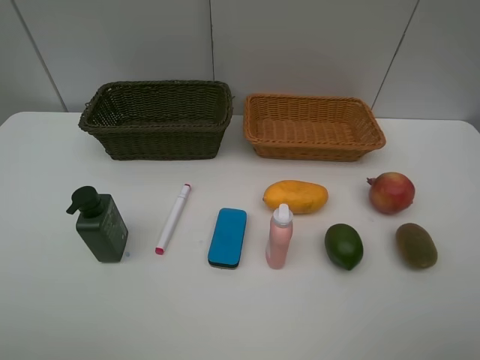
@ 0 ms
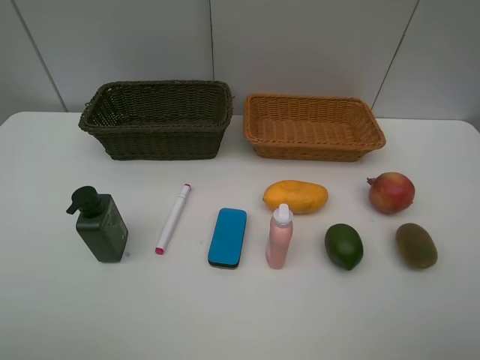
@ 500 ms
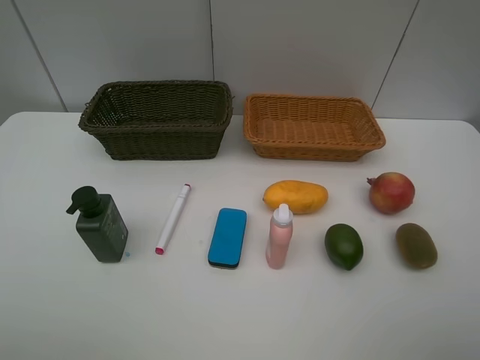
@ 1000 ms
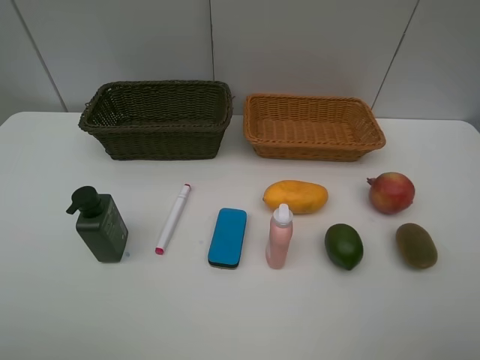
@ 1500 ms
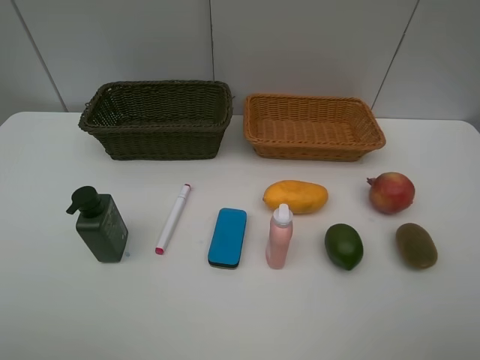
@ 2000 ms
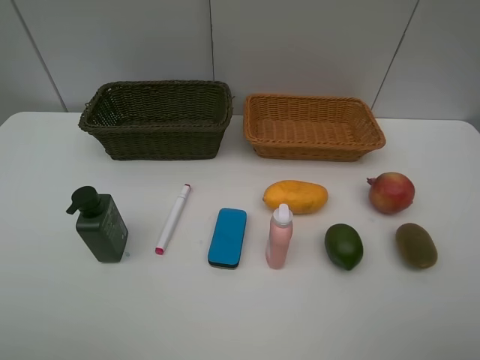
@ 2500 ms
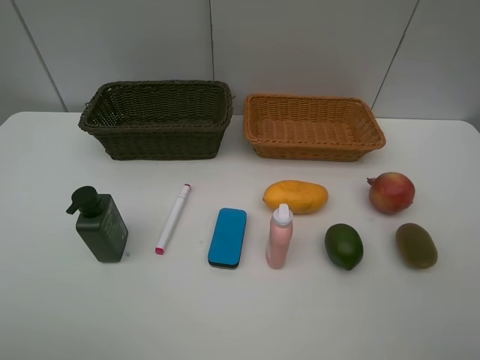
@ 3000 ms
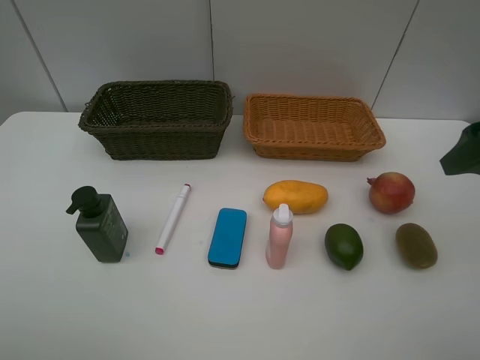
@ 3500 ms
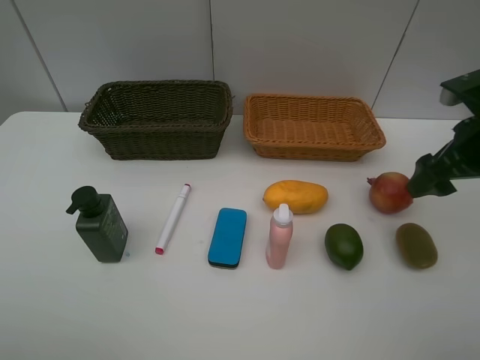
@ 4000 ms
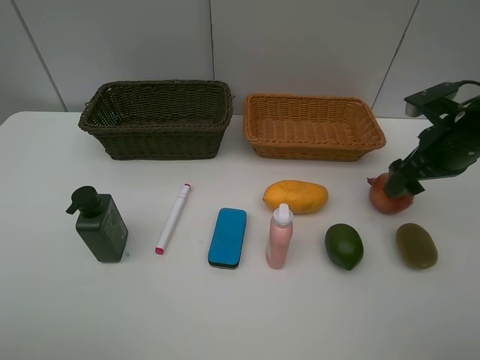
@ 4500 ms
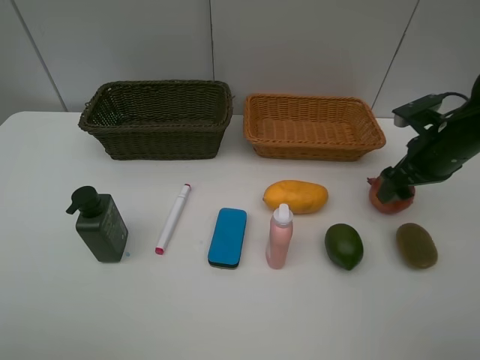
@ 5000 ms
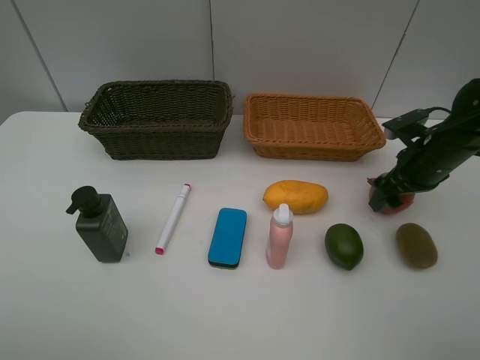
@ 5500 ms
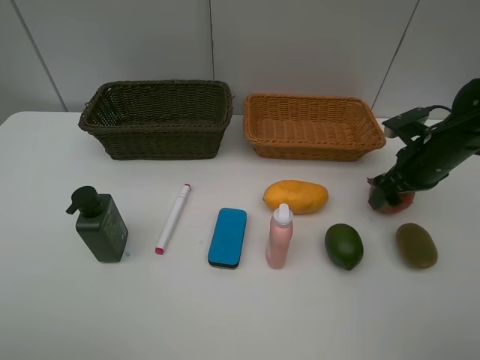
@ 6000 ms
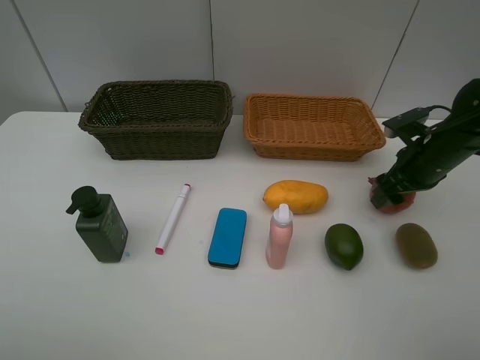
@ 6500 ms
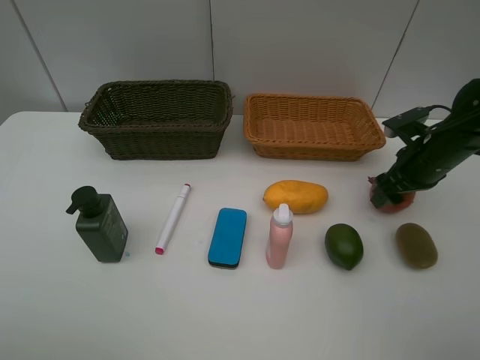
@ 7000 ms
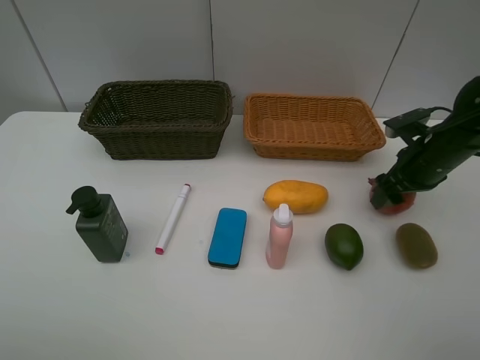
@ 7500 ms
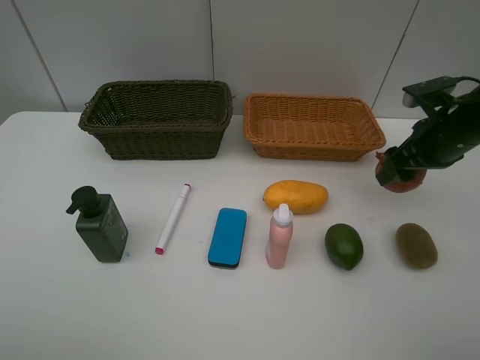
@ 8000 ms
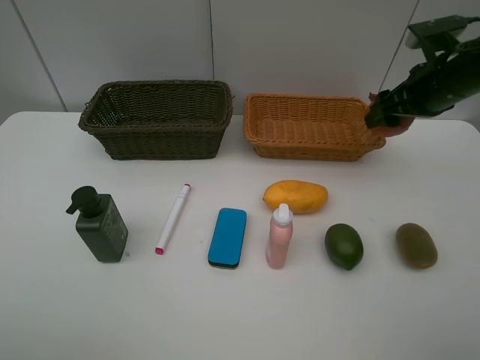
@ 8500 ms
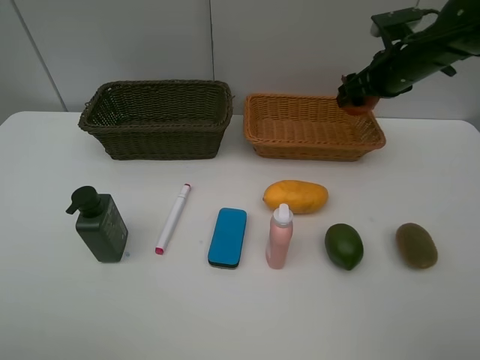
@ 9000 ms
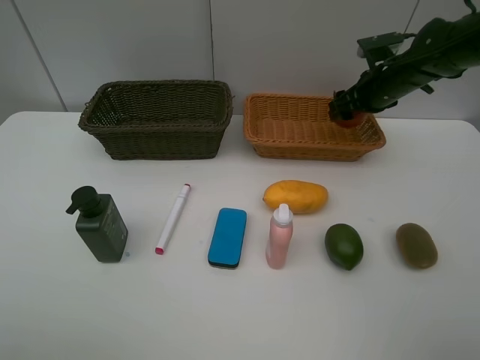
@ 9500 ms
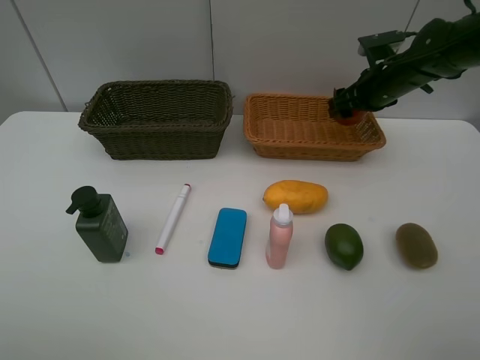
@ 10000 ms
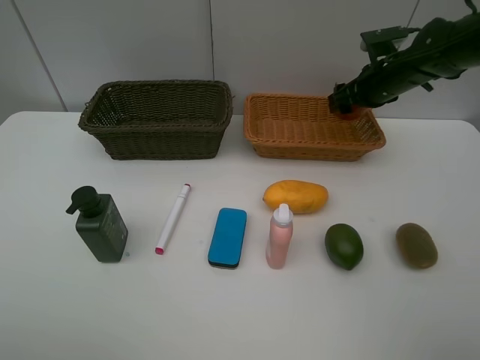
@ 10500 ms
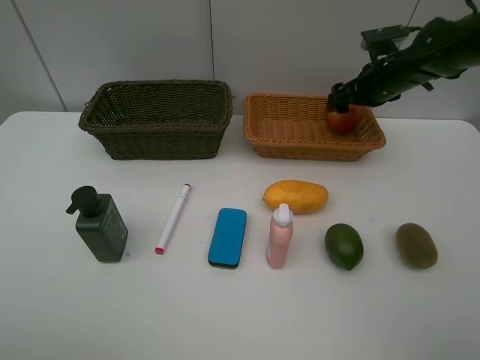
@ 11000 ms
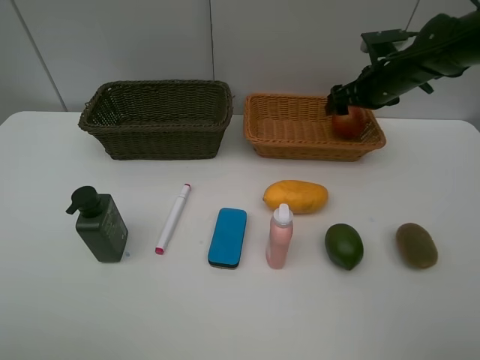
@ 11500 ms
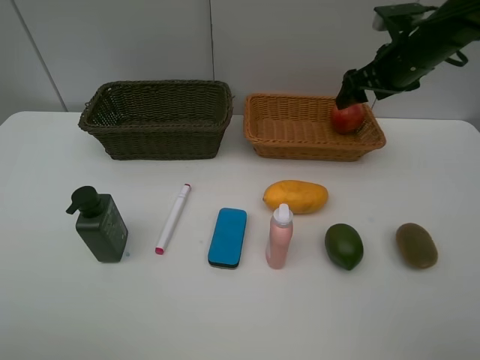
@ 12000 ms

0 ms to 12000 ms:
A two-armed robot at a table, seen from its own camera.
Task of the whole recording: Place multiple objects separately in different baskets.
Step, 0 ms to 8000 ms: Pick up the pomegranate with right gripper.
Step, 8500 ms to 11500 ms: Place the pomegranate in the light basket with right gripper.
0 ms to 2000 ms: Both grippers stay put.
2000 ms to 4000 ms: The right gripper travels forward by roughly 25 cm.
4000 ms to 6000 ms: The right gripper heads downward and forward, covering approximately 10 cm.
6000 ms to 8000 ms: The right gripper is displaced upward by approximately 5 cm, and closes.
8000 ms to 10000 ms: The right gripper is displaced forward by roughly 15 cm.
10000 ms to 12000 ms: The right gripper heads upward, covering about 5 cm, and opens.

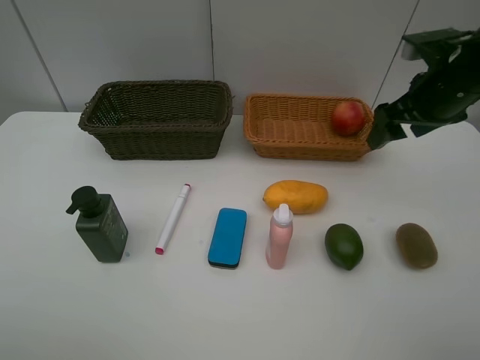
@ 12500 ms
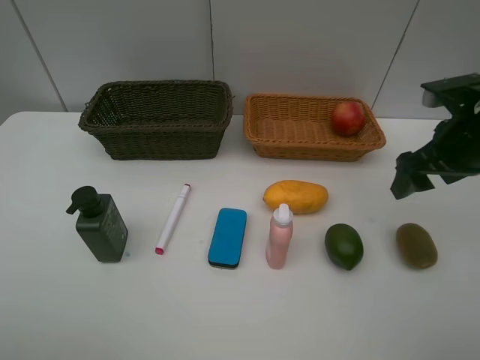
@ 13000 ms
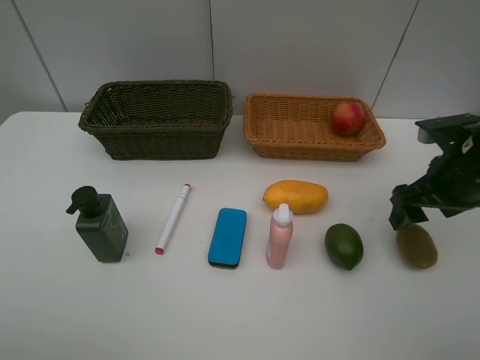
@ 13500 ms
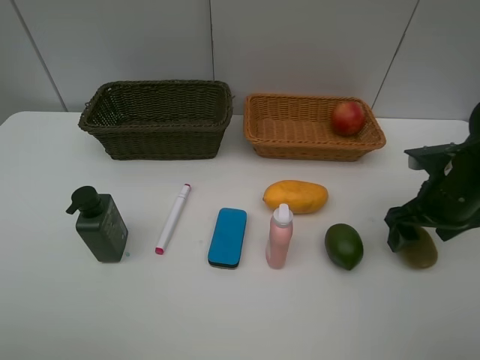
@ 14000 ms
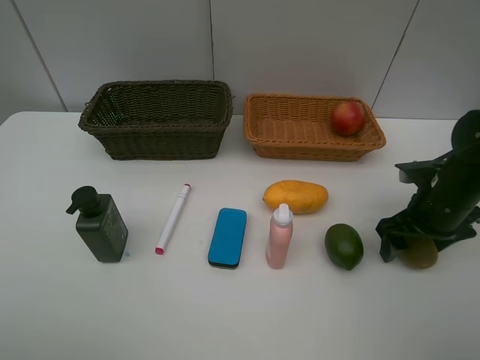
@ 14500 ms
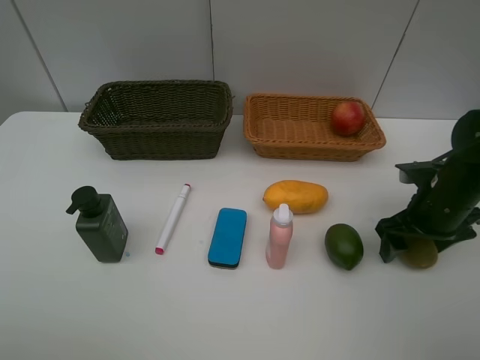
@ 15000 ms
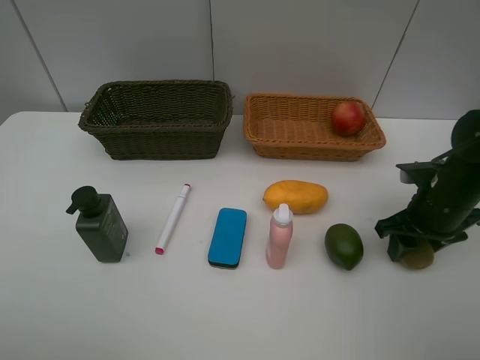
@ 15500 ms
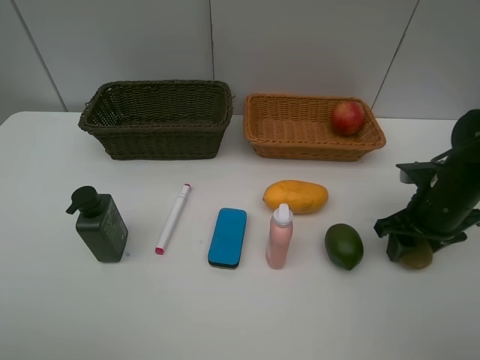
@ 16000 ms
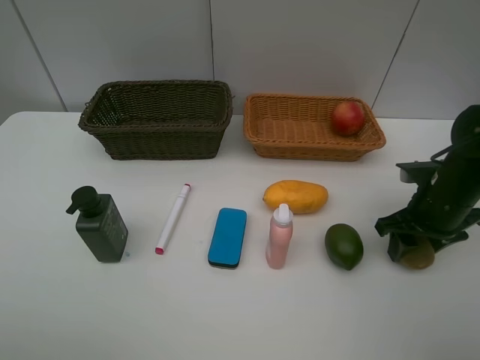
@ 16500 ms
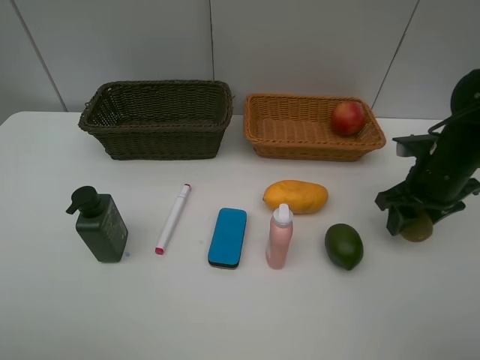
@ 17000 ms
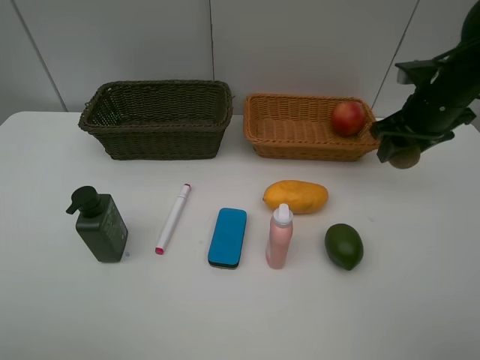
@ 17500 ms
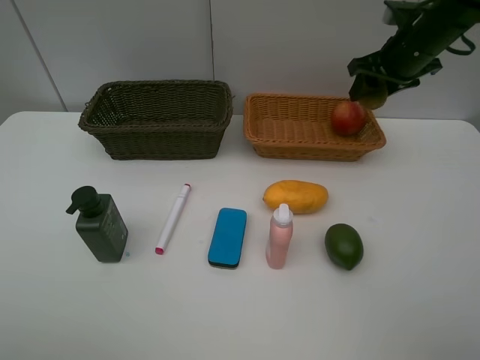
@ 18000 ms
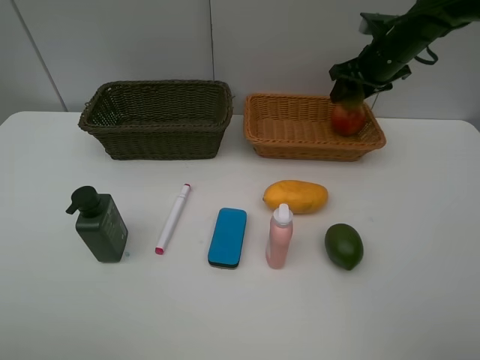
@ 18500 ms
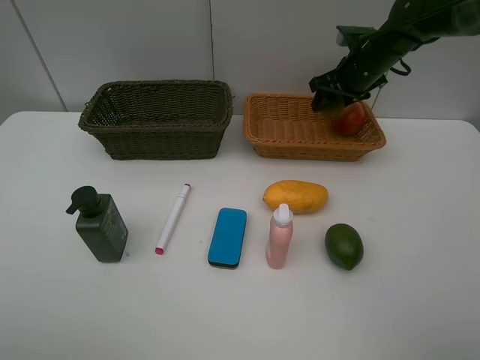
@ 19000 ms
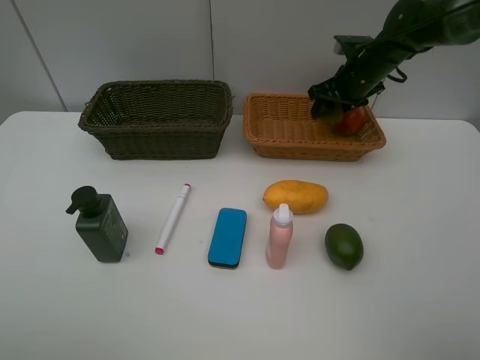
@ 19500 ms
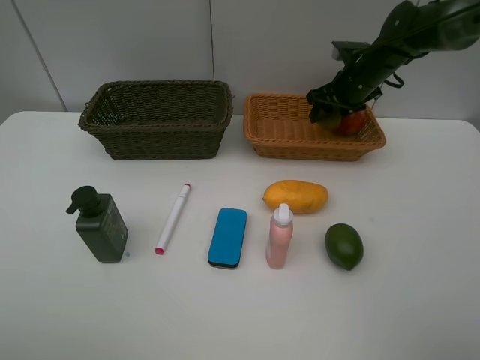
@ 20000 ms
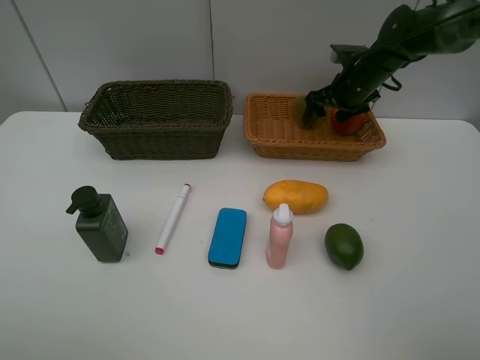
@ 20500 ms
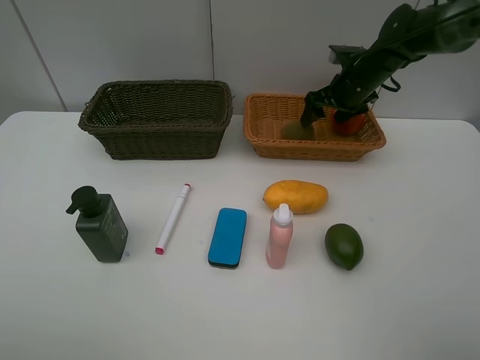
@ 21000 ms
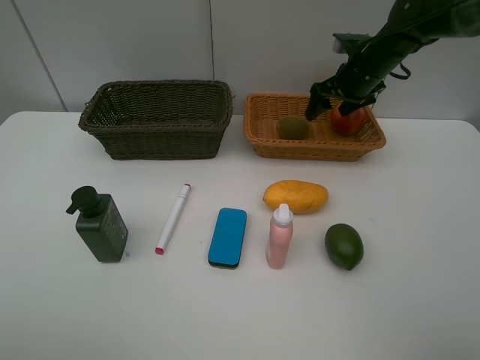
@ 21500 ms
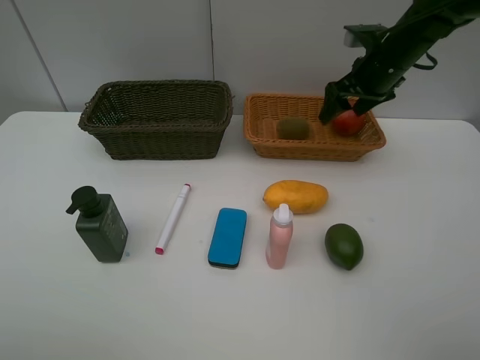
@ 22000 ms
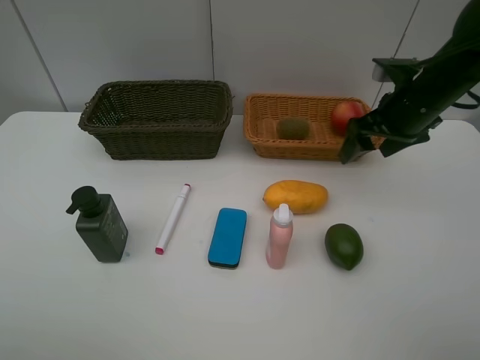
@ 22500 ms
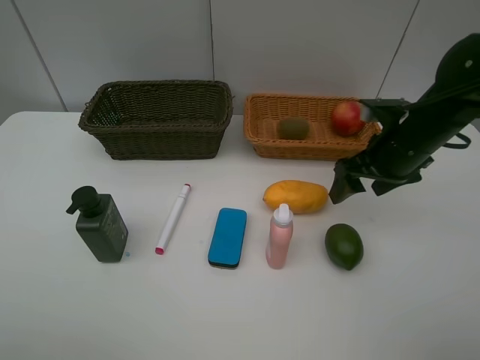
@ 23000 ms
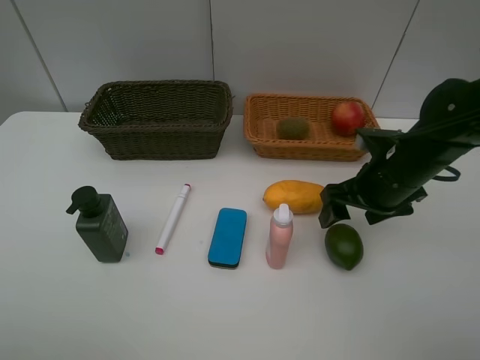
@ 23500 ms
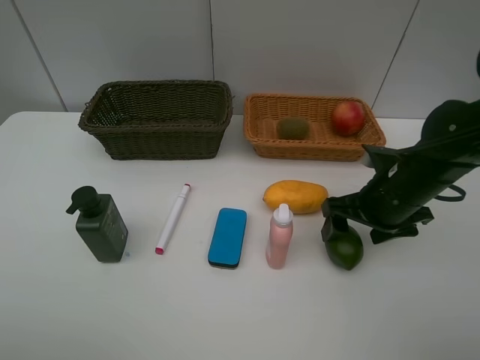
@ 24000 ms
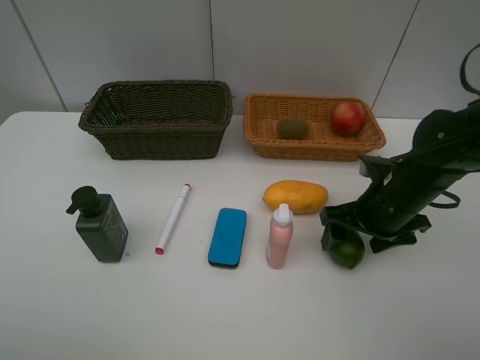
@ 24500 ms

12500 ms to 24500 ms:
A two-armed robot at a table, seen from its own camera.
Task of the whole recording: Place multiple objects separately in different baskets.
Step, 12500 ms to 17000 ms: Pick up kiwi with right gripper.
Step, 17500 ms to 21000 ms: Place the kiwi in the light basket with right gripper.
12500 ms to 14500 ms: The right gripper is displaced downward and backward by about 15 cm.
14500 ms to 16500 ms: The right gripper closes.
16500 ms to 18500 ms: The right gripper shifts approximately 25 cm forward and upward.
18500 ms to 20500 ms: The right gripper travels downward by approximately 5 cm, and opens.
20500 ms to 22500 ms: The right gripper travels backward by about 15 cm.
22500 ms to 24500 ms: The right gripper goes roughly 15 cm downward and backward.

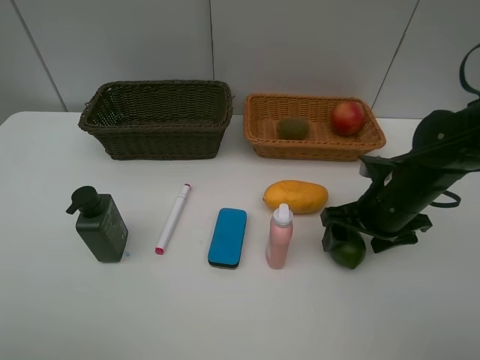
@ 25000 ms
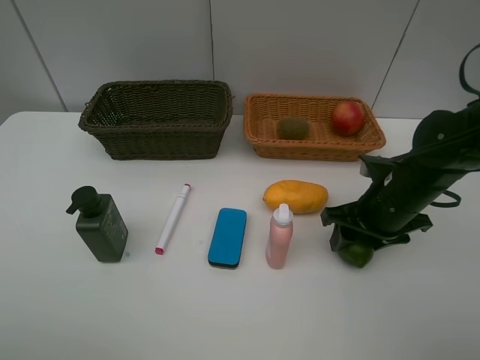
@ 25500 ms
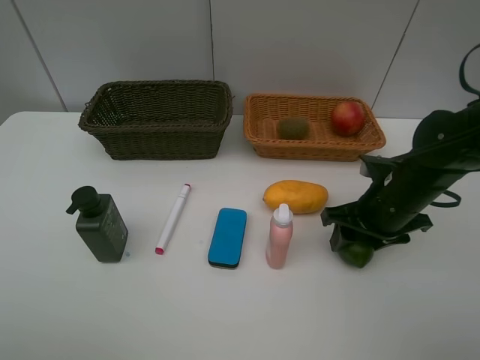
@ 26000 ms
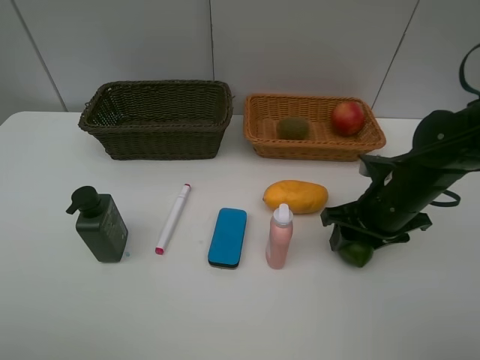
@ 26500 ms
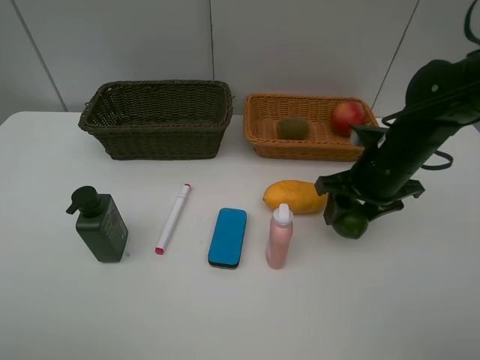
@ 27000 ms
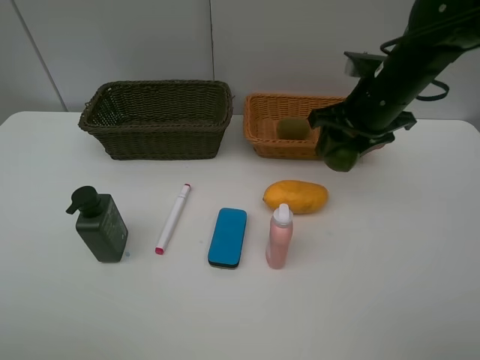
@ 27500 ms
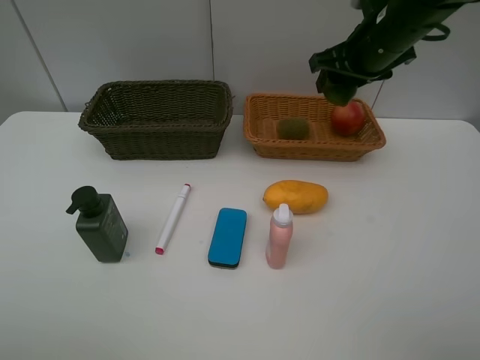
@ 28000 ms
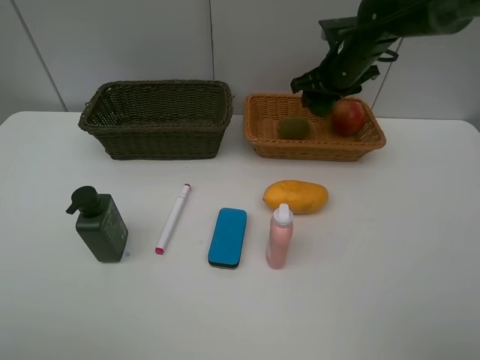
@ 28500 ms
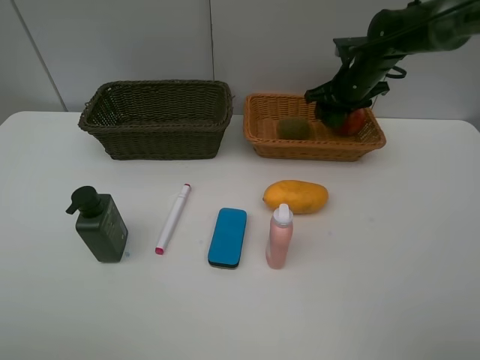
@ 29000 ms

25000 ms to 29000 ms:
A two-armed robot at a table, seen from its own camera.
Task of the whole recording: Place multiple objects separately in different baskets.
Step, 25000 ms to 27000 ms: Pick up the lime with right gripper.
25000 ms to 27000 ms: The right gripper changes place by about 5 cm, and closes up.
27000 ms to 29000 ms: The right gripper heads forward, covering some 20 cm.
